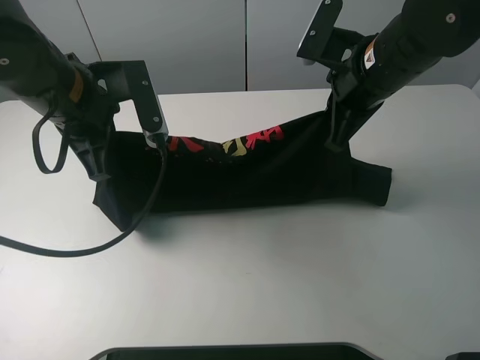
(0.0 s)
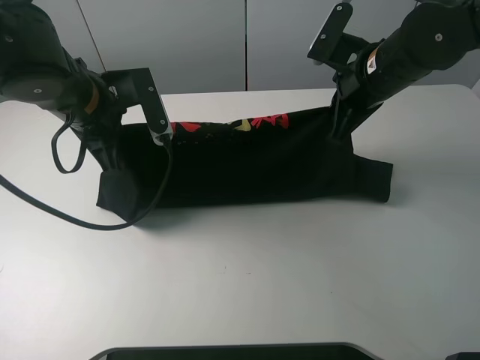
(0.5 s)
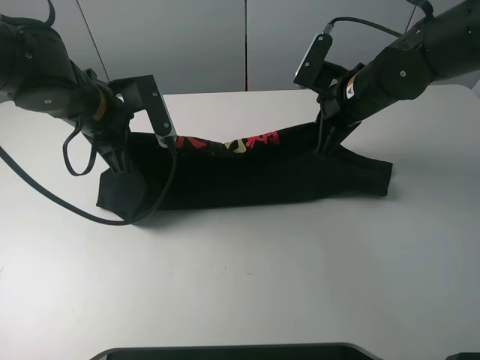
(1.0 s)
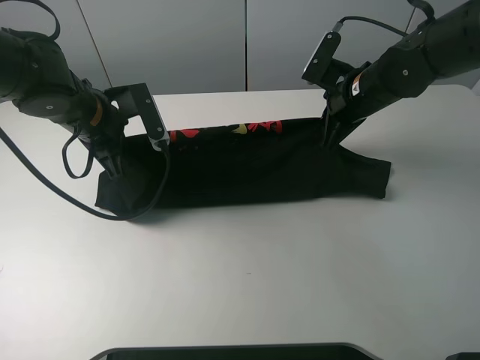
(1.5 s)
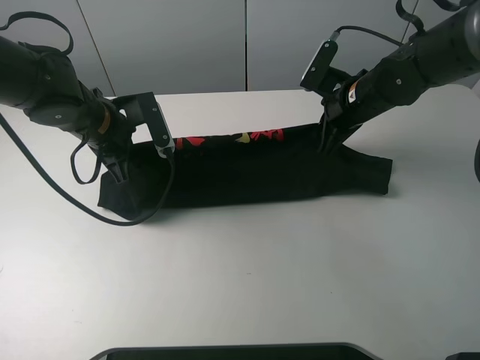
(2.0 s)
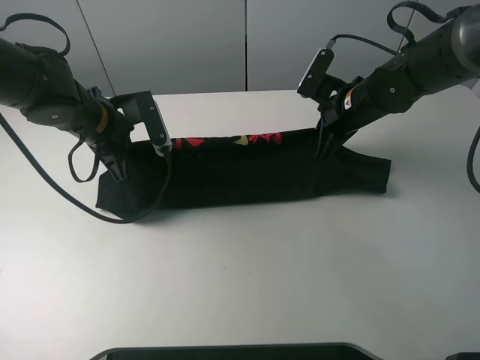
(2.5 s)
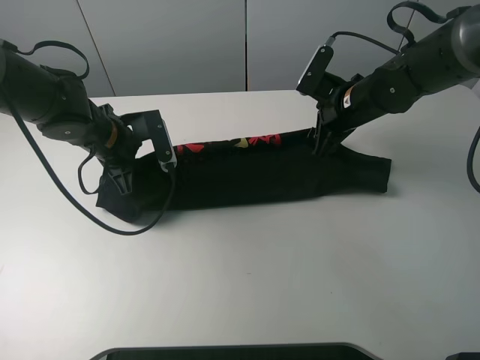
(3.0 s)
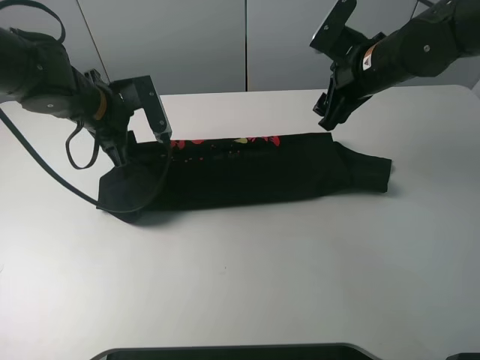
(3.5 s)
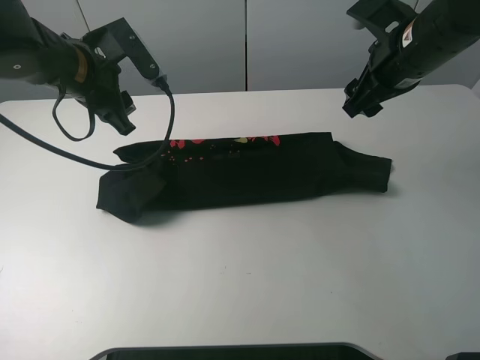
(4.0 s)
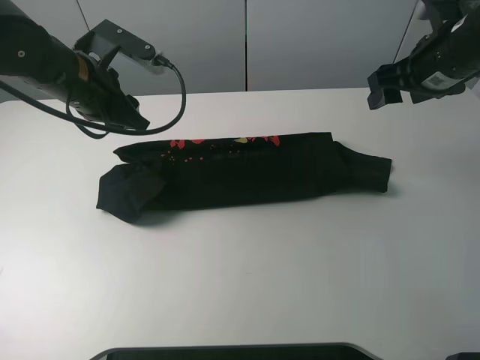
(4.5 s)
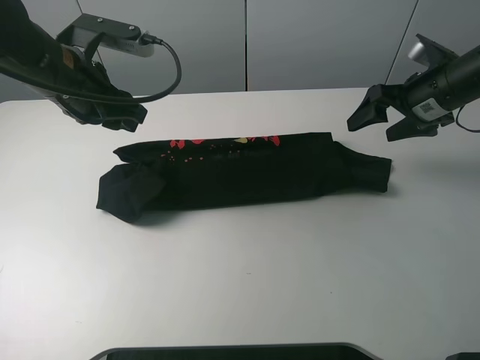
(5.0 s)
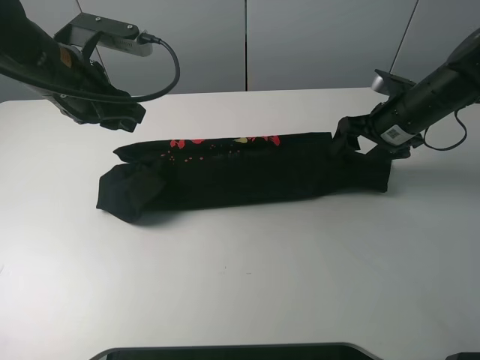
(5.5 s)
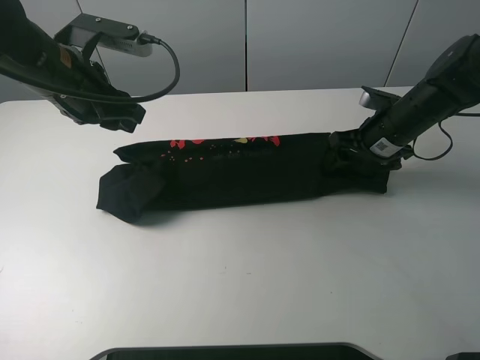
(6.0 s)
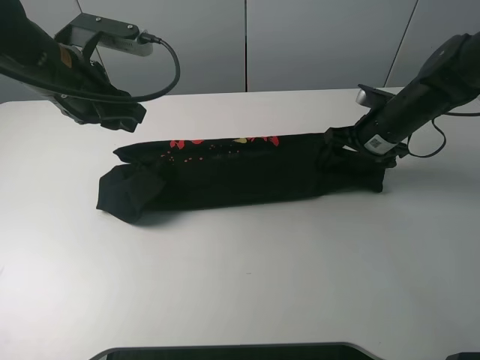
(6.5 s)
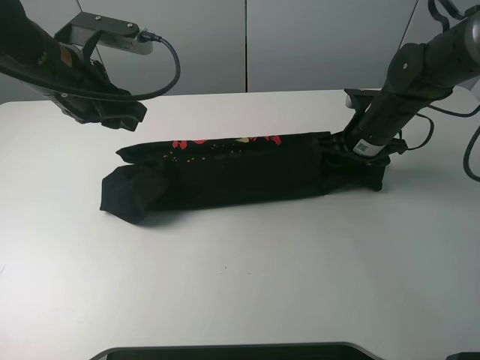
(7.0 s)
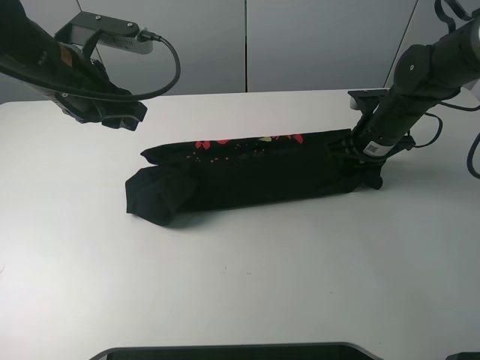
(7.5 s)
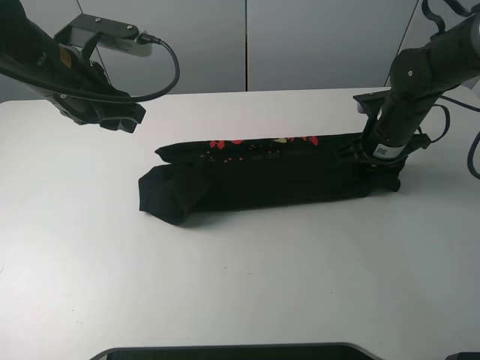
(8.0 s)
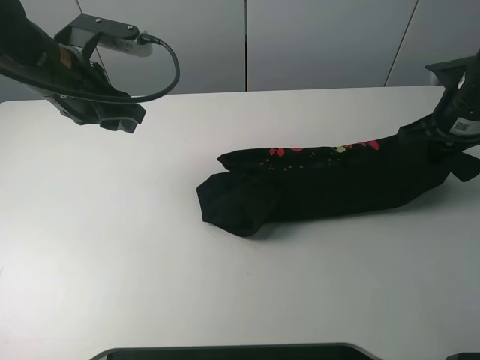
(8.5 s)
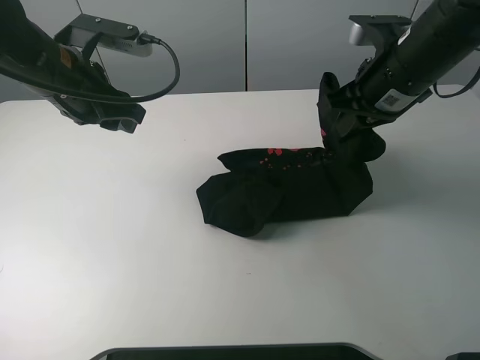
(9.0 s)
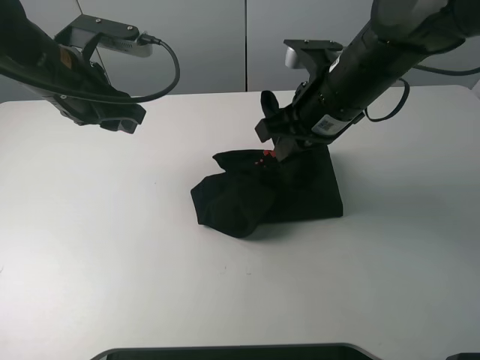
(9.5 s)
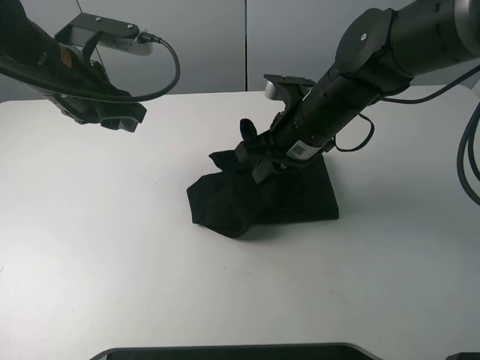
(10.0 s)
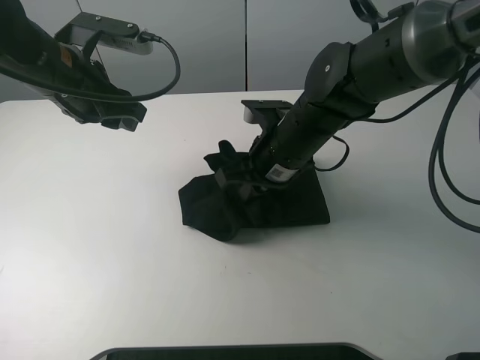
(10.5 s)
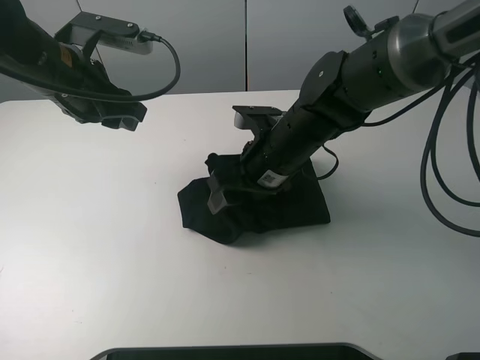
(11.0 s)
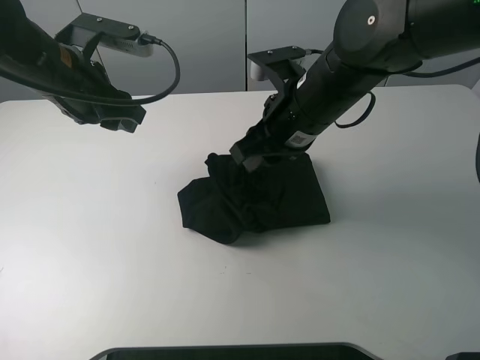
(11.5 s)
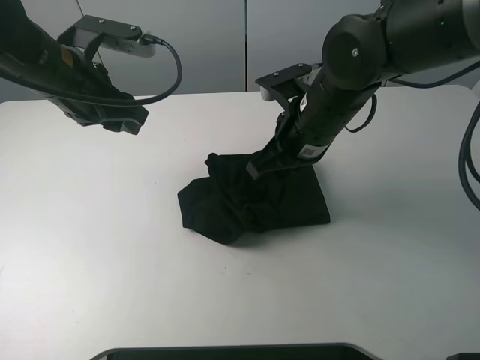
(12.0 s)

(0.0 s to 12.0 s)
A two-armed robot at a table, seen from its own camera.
Task of the whole recording: fold the clothes on the table.
Step, 0.0 s - 3.5 s: Fold the black T-shirt downward with the left gripper.
Step, 4.0 s - 7.0 s: Grasp the black T-shirt with the right gripper.
0.0 s - 2.0 s: Both grippers move downward and forward, some 10 cm.
2.0 s - 4.0 s: Both grippers travel together upward, roughly 10 cm. The left gripper opens its fingers; the right gripper opens up.
4.0 s - 6.0 s: The right gripper is displaced downward by about 15 cm.
6.0 s - 8.0 s: The right gripper closes up.
8.0 s - 10.0 s: The right gripper shifts roughly 15 cm to the left and upward.
10.0 s - 12.0 s: The right gripper opens, then closes again.

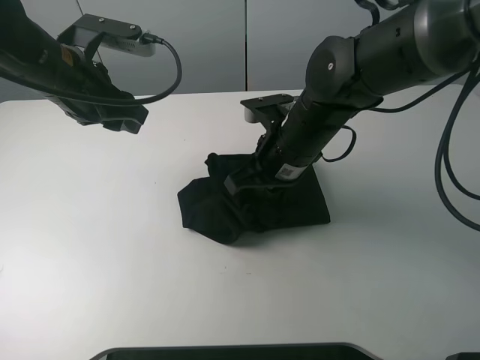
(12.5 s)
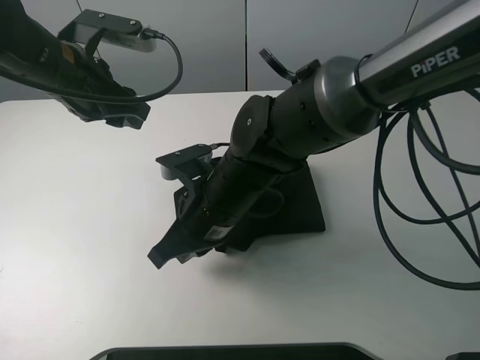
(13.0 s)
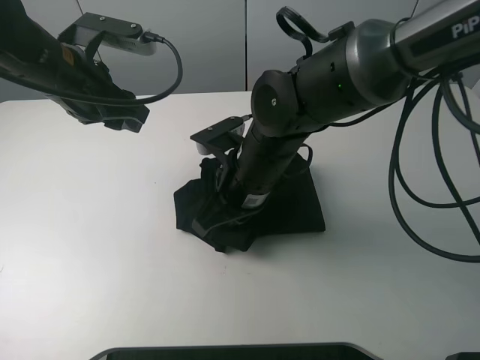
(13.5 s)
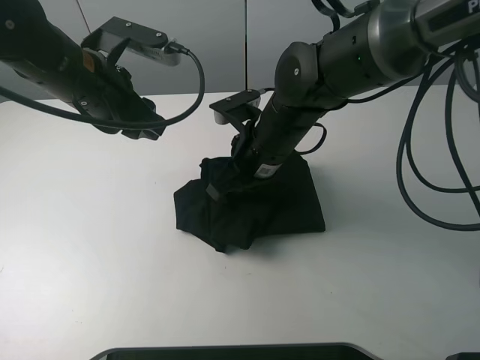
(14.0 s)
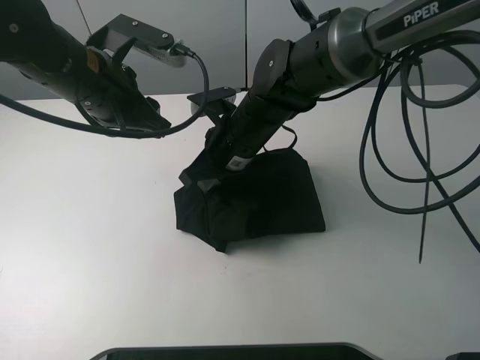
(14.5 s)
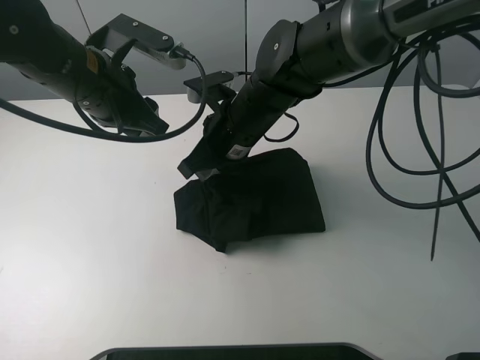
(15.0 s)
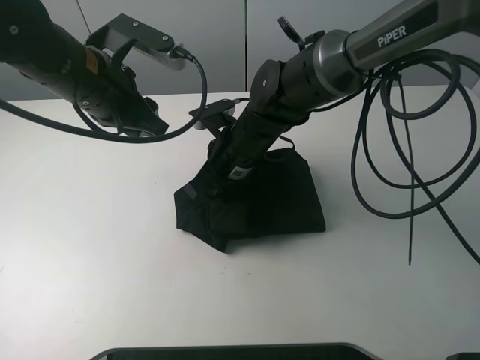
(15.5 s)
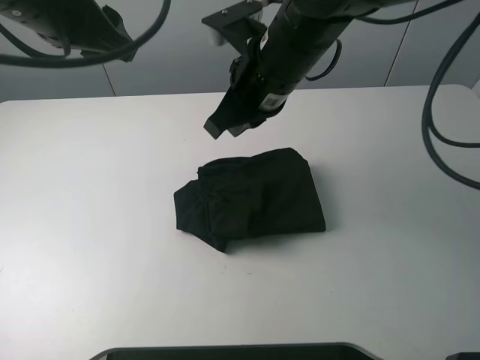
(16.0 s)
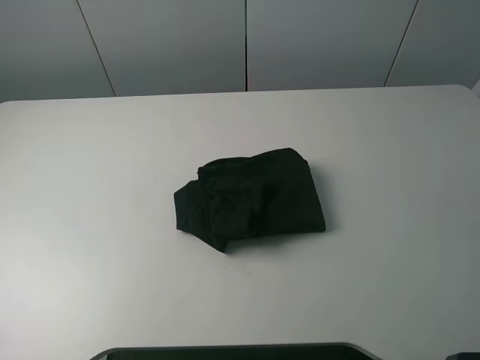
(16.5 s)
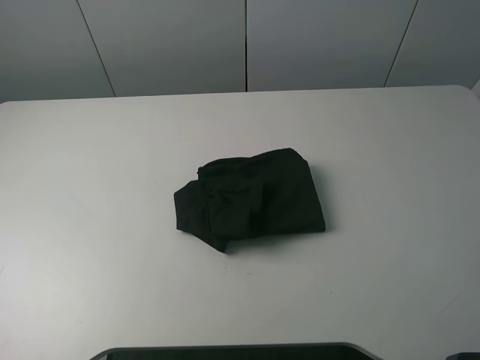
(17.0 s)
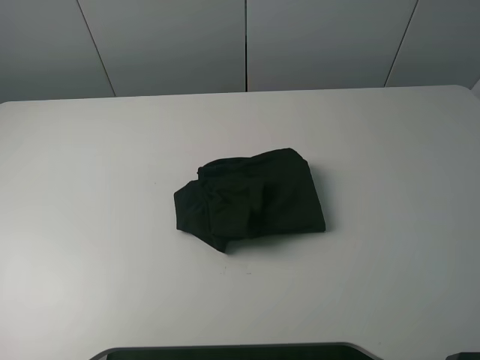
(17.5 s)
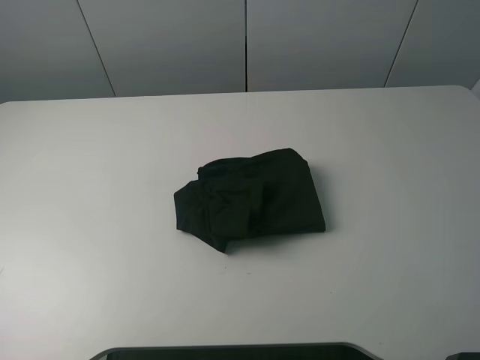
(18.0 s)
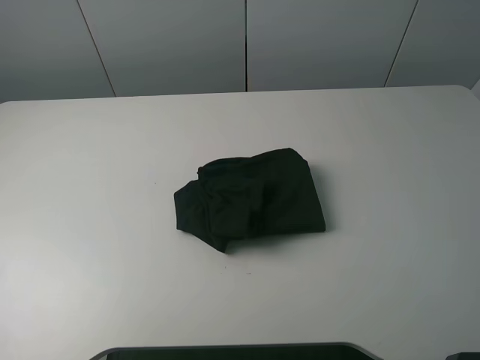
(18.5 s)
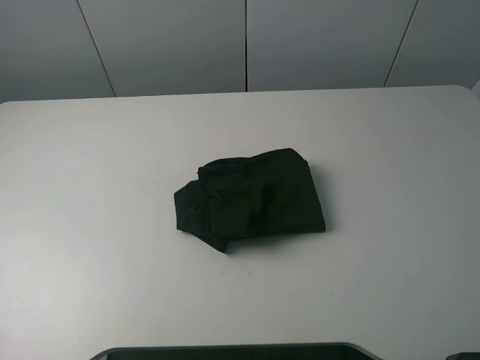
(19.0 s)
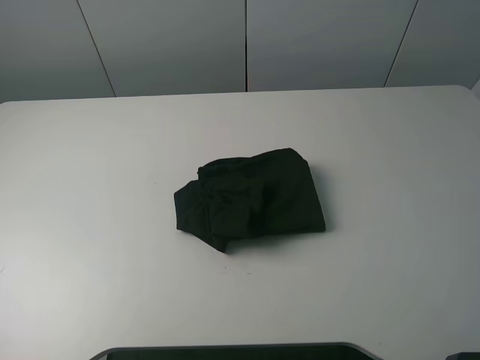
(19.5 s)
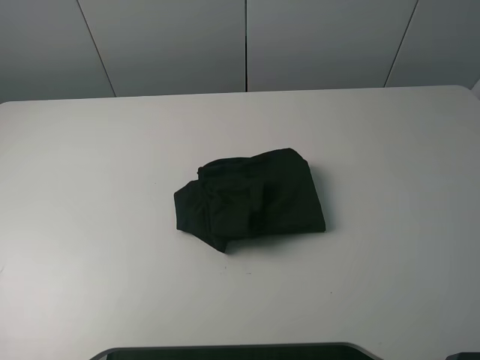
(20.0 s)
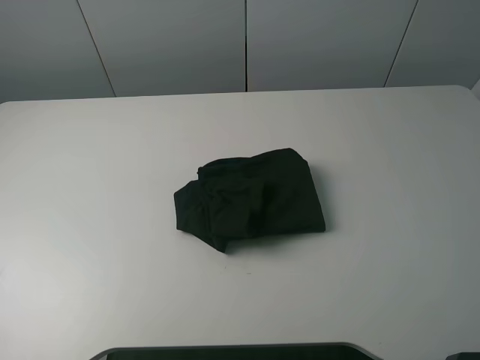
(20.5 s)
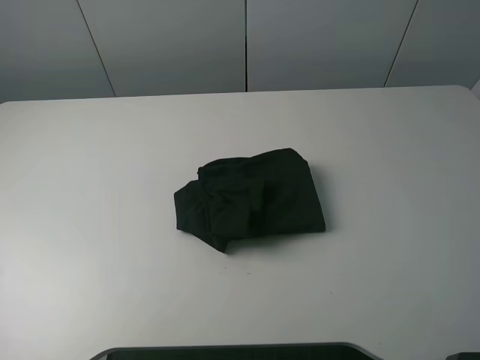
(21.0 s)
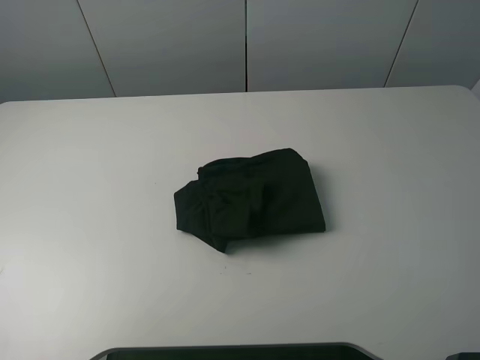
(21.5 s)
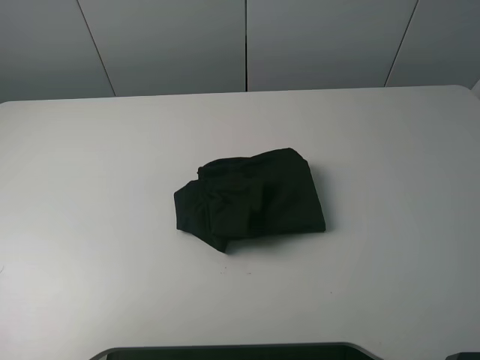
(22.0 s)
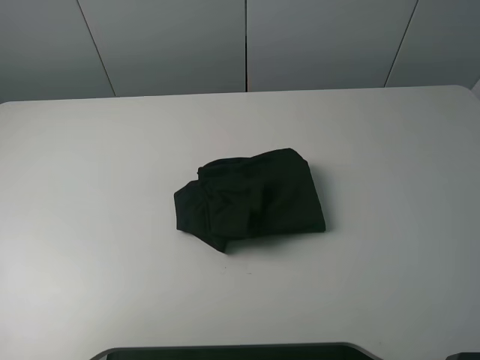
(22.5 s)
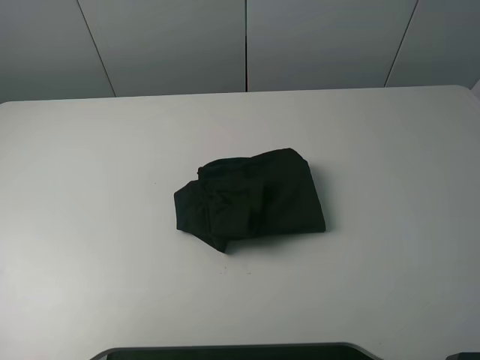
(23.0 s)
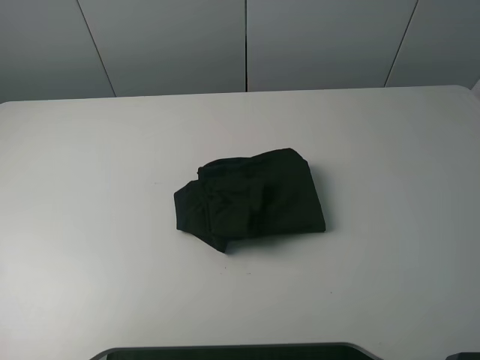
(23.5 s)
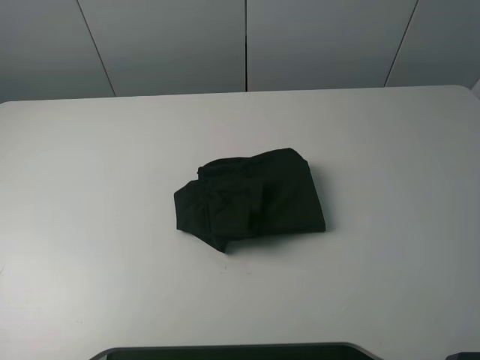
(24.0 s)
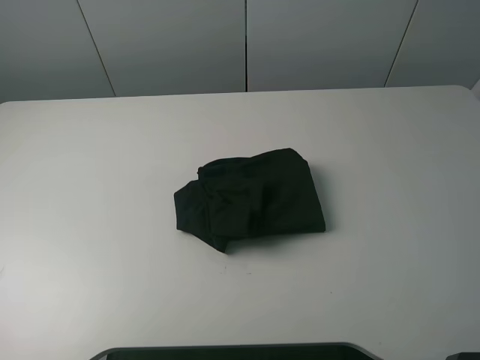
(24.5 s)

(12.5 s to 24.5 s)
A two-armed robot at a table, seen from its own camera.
Task of the whole recording: fold the clothes on the table.
Step, 12.5 s - 15.5 s: Fold the black T-shirt from right to left with right gripper.
12.5 s - 14.5 s: The right gripper is displaced to the left by roughly 5 cm.
14.5 s - 16.5 s: The left gripper shifts approximately 25 cm upward, backward and to the left. The right gripper moves upward, to the right and backward, roughly 40 cm.

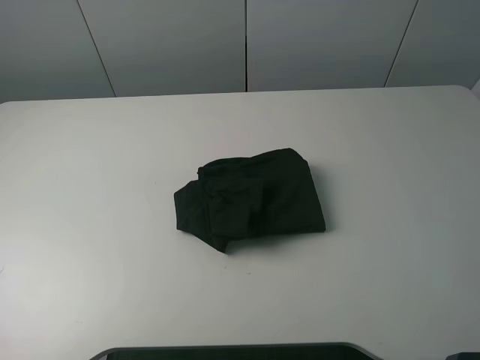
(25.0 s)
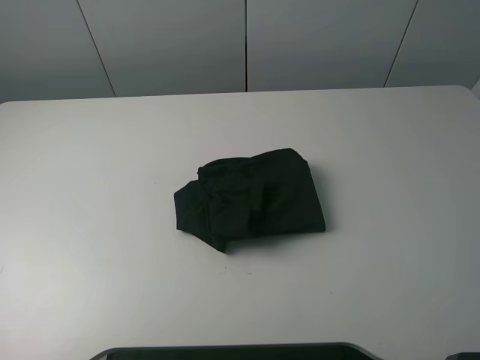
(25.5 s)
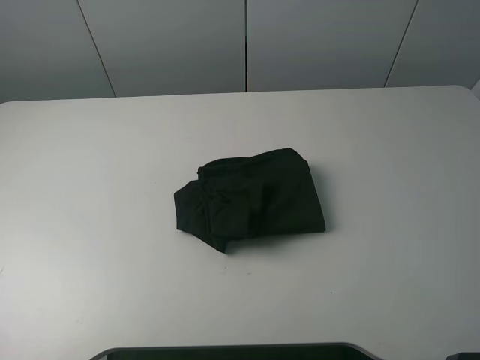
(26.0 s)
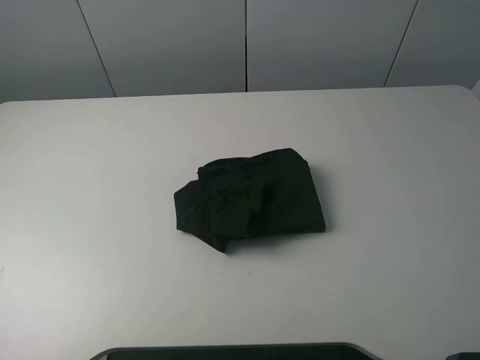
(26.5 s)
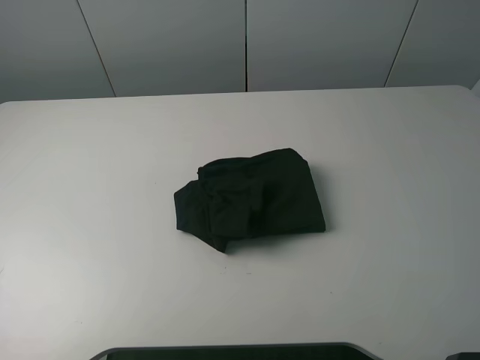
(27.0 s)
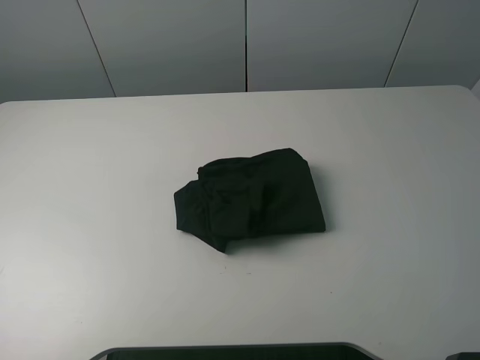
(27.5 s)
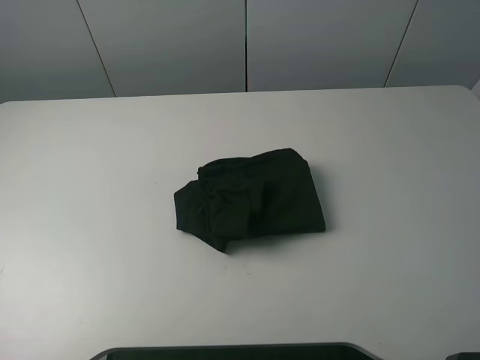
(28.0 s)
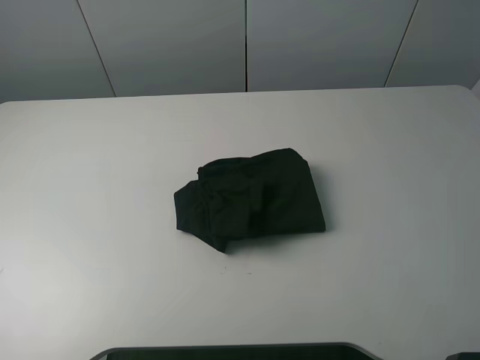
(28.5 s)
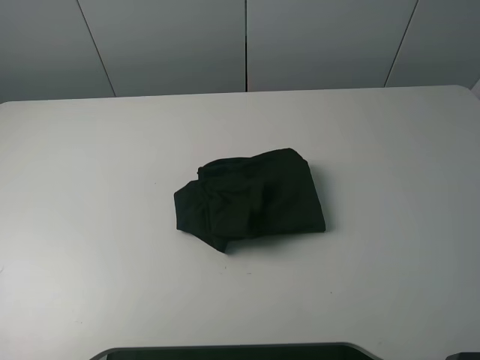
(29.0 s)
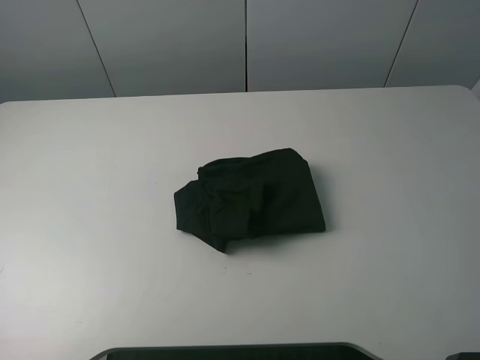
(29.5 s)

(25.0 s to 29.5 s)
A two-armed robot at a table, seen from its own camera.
Task of the whole recording: fold the clothes on the table.
25.0 s - 29.5 s: Both grippers stay put.
